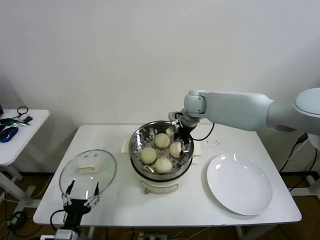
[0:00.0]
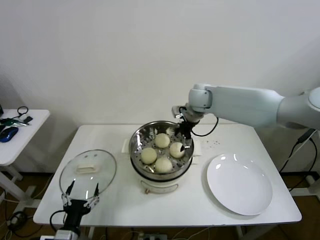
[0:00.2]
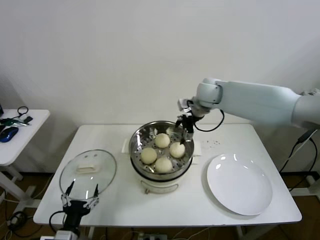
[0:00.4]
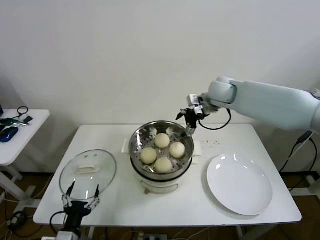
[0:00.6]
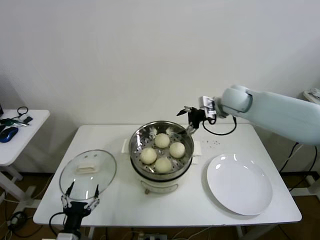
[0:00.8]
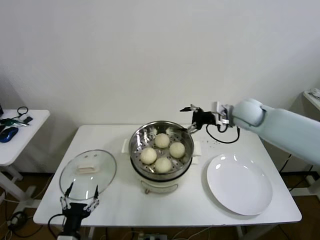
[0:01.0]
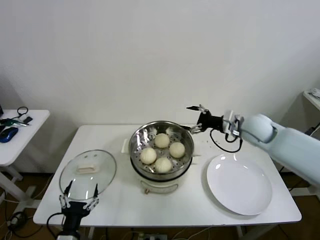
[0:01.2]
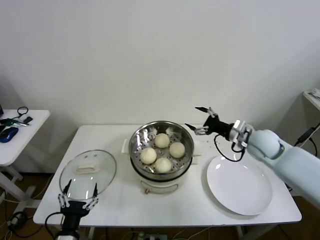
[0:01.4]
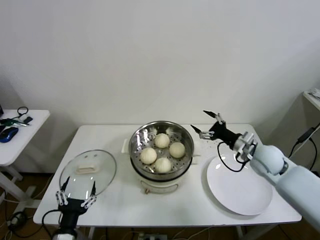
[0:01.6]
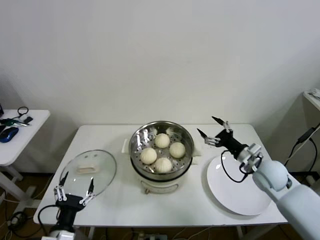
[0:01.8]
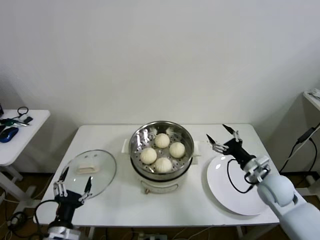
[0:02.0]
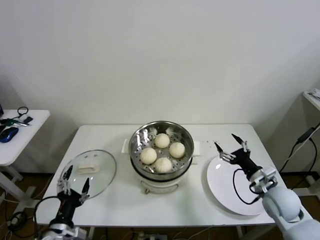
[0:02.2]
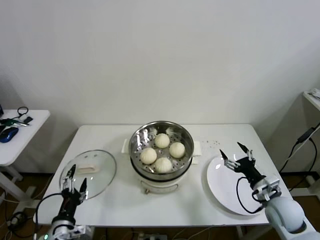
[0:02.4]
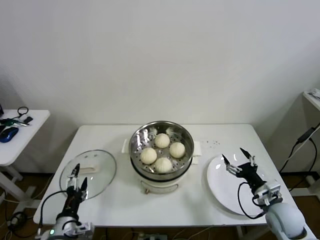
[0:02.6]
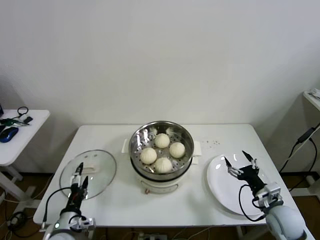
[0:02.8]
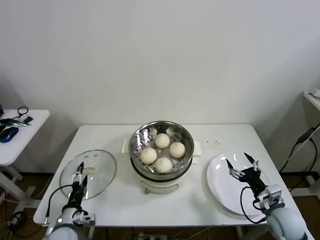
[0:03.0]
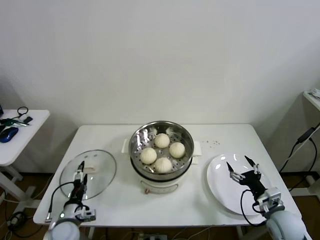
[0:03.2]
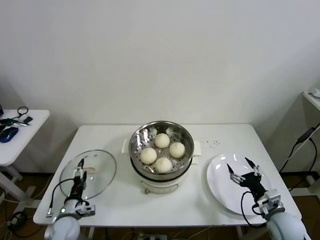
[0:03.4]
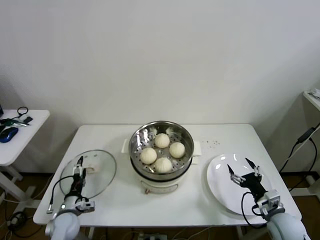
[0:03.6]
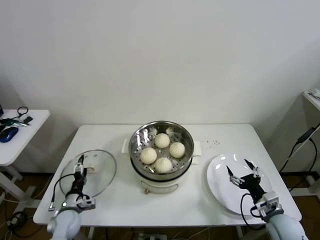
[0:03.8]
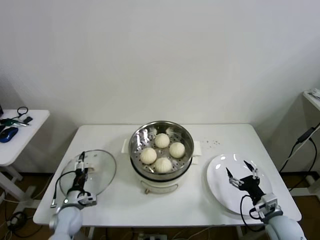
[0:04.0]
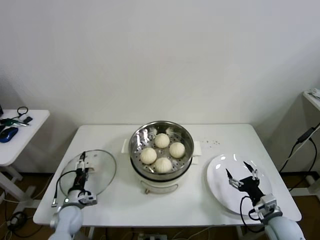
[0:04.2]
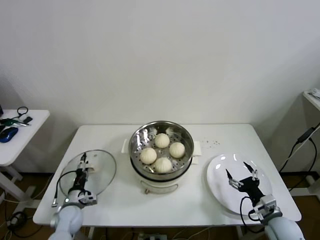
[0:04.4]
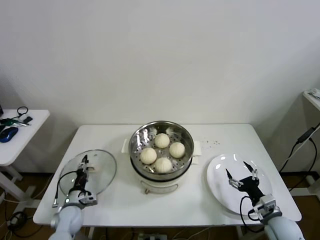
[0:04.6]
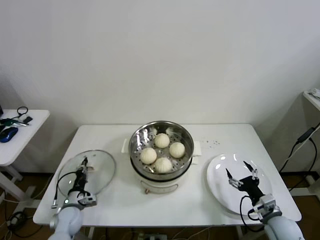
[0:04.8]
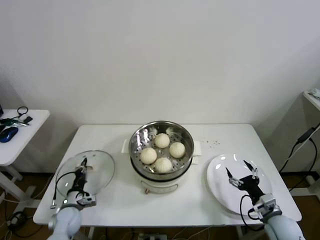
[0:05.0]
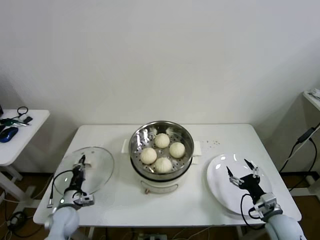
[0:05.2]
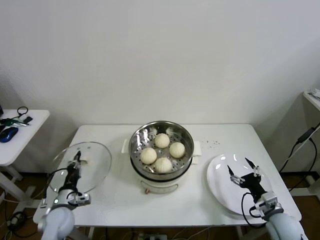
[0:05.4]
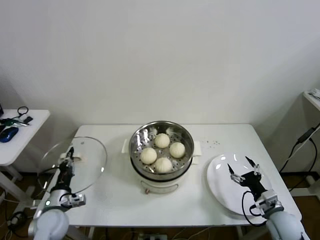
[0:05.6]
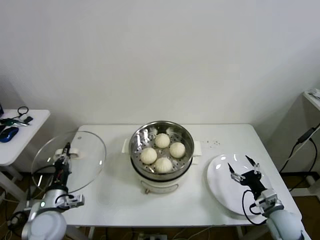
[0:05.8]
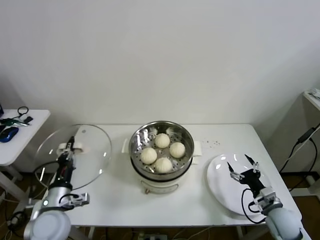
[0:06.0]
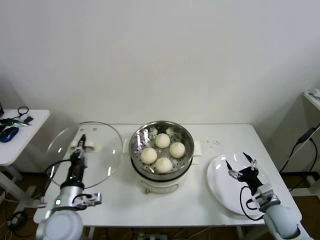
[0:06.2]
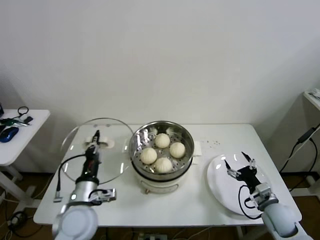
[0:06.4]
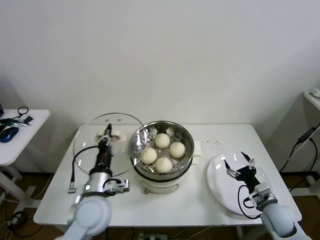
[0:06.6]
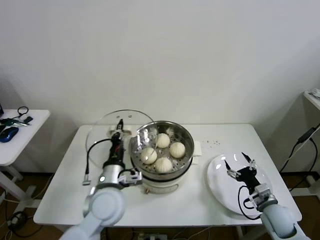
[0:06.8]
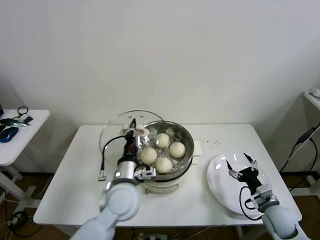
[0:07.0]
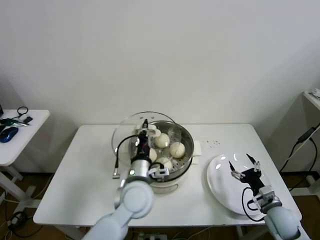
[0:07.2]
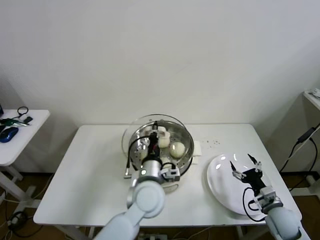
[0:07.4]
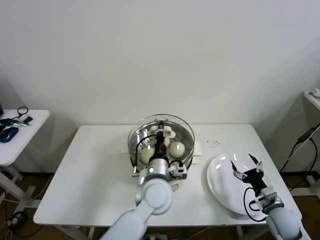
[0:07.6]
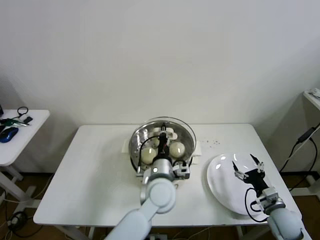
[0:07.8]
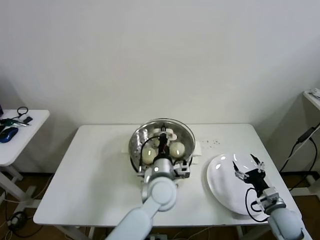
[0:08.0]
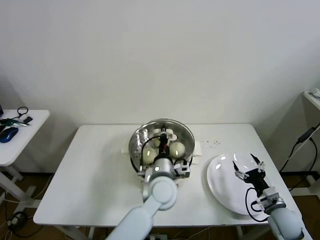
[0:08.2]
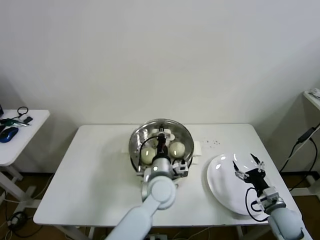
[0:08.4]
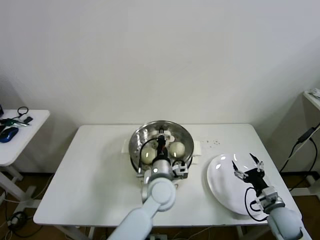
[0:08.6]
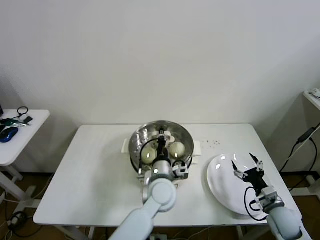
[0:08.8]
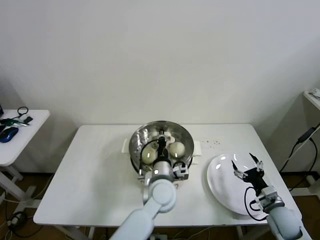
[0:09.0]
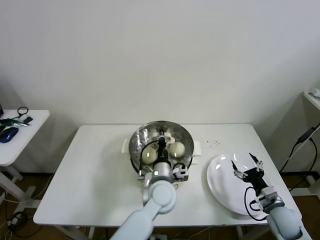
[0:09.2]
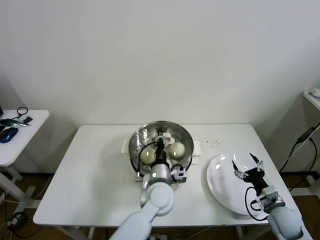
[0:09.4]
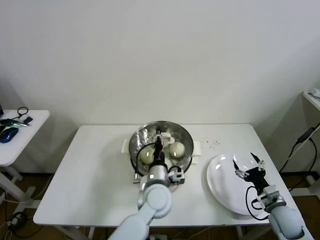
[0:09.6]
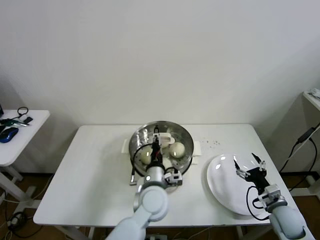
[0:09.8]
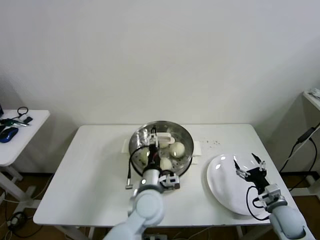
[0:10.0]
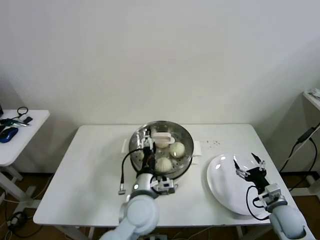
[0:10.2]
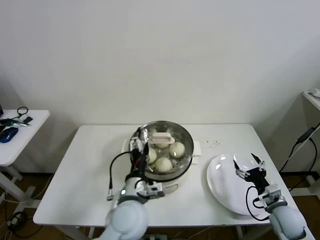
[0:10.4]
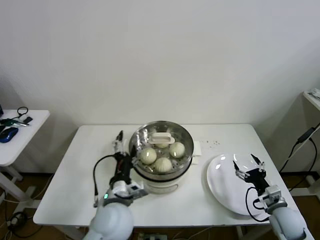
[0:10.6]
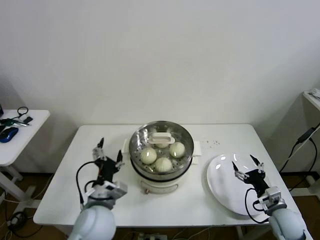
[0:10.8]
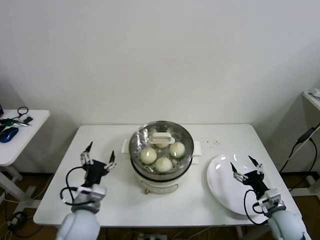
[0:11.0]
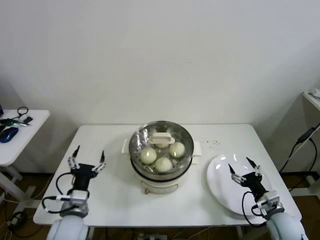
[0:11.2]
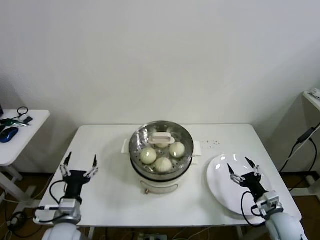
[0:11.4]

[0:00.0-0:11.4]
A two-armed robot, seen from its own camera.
Step, 0:00.0 to 0:04.8: Grasp the pot lid with left gripper.
Step, 0:05.0 to 0:09.4: Place the pot lid on the steamer with left gripper.
0:00.0 to 0:01.4: The right gripper goes some 25 cm to the right and backward.
0:01.4 to 0:02.8: The right gripper travels backward and downward by some 25 cm, while the left gripper heads forward, covering about 5 cm.
0:02.8 to 0:04.2: The left gripper goes about 15 cm forward and downward.
0:04.2 to 0:05.6: The left gripper is displaced upward by about 10 cm, and closes up.
0:05.6 to 0:07.2: The left gripper moves to the right and upward, approximately 30 cm.
0:07.2 to 0:08.6: The left gripper travels to the right by about 10 cm.
0:08.6 to 0:10.0: The left gripper opens its fingers.
0:10.0 to 0:11.4: The left gripper goes roughly 25 cm to the left.

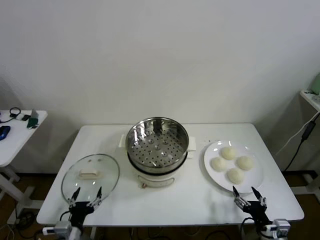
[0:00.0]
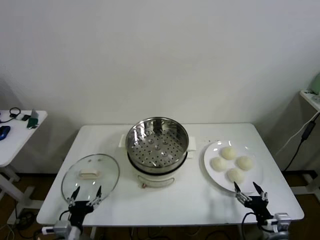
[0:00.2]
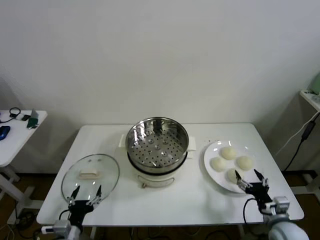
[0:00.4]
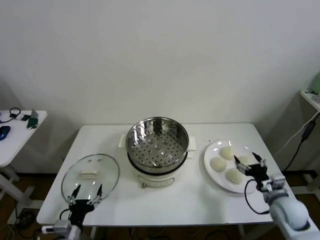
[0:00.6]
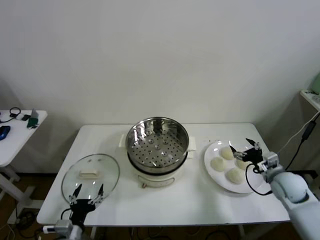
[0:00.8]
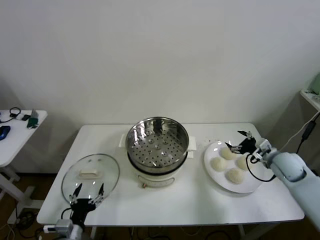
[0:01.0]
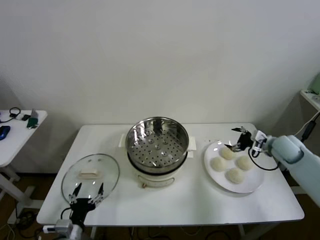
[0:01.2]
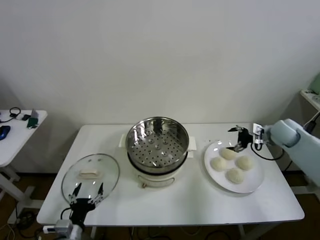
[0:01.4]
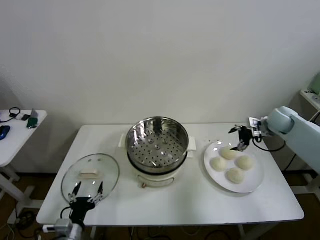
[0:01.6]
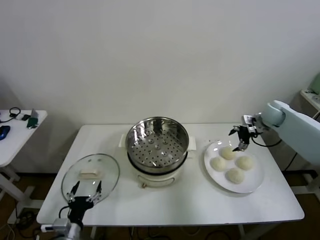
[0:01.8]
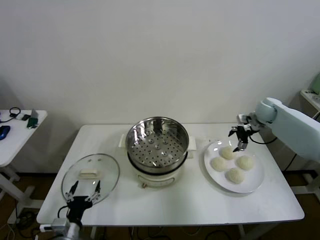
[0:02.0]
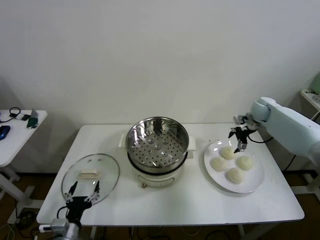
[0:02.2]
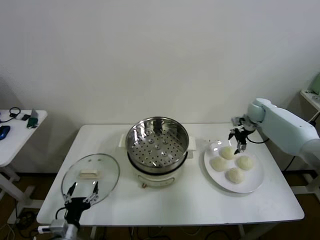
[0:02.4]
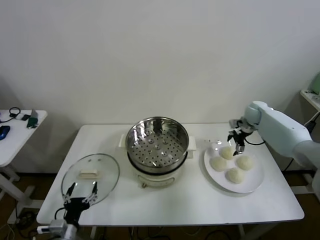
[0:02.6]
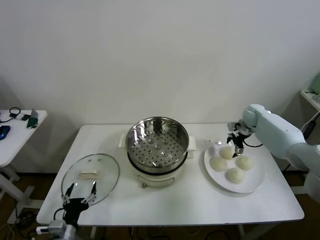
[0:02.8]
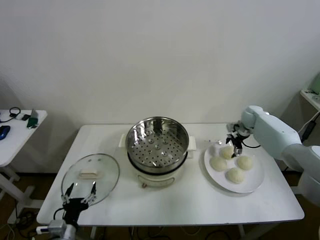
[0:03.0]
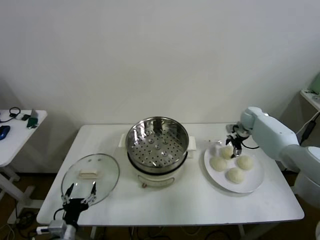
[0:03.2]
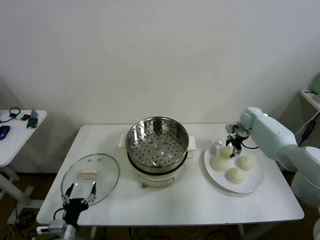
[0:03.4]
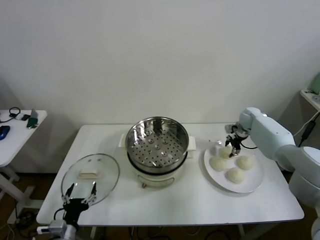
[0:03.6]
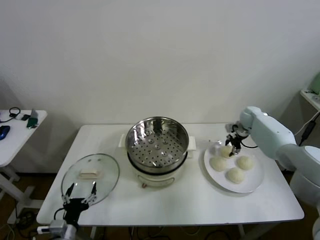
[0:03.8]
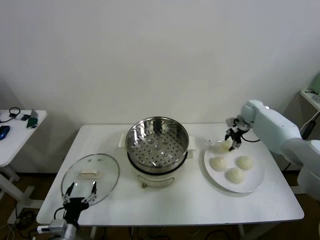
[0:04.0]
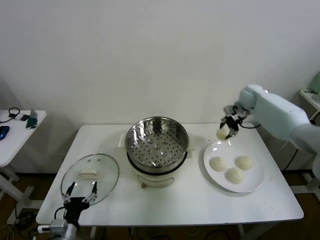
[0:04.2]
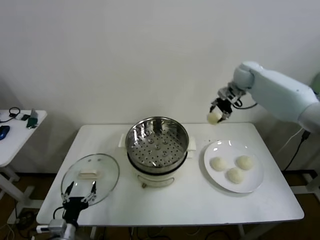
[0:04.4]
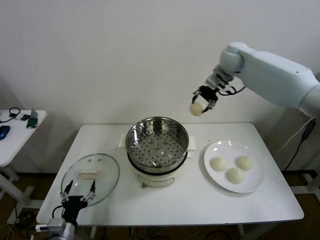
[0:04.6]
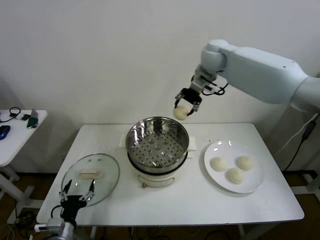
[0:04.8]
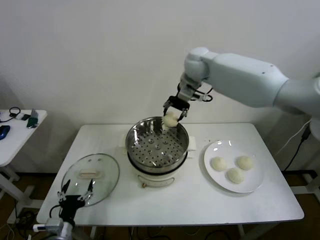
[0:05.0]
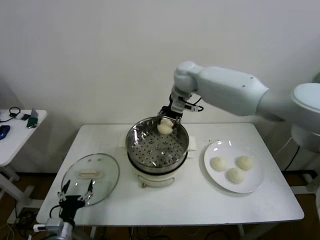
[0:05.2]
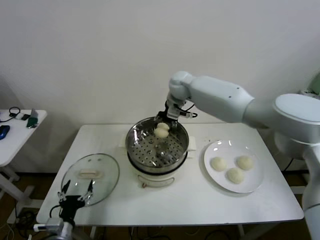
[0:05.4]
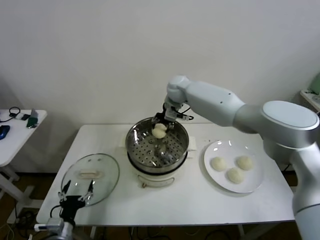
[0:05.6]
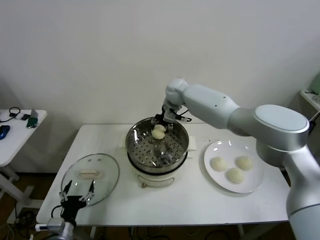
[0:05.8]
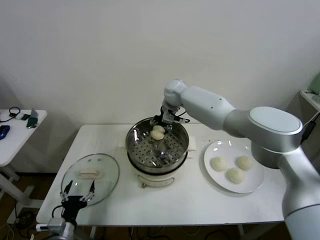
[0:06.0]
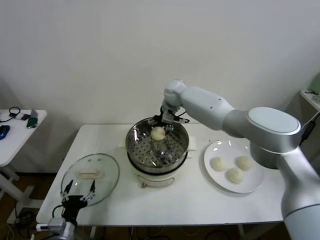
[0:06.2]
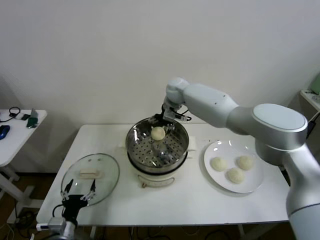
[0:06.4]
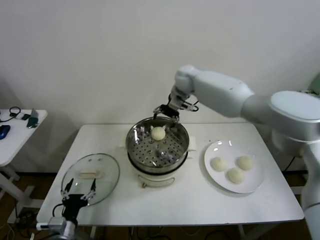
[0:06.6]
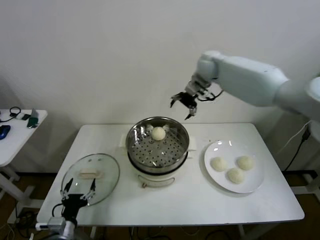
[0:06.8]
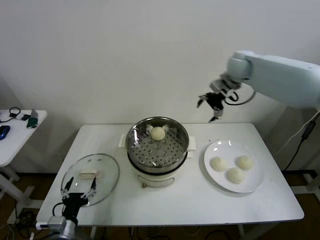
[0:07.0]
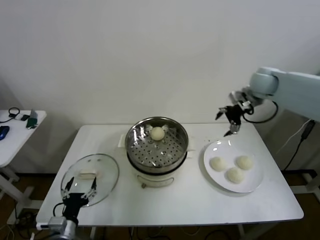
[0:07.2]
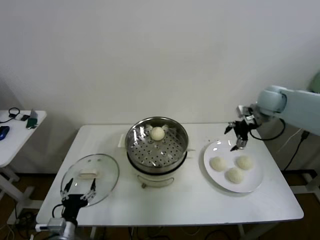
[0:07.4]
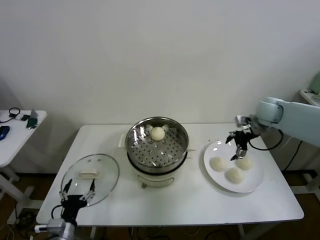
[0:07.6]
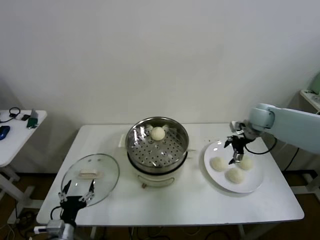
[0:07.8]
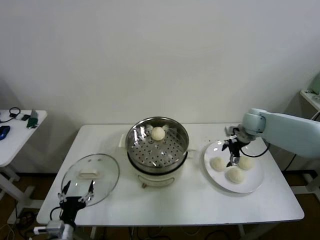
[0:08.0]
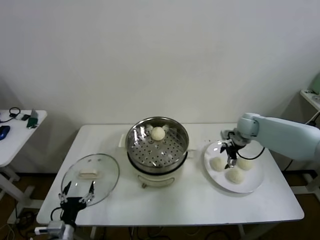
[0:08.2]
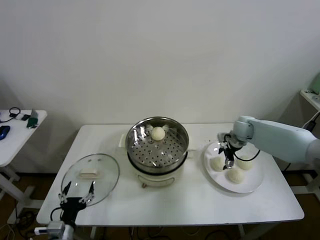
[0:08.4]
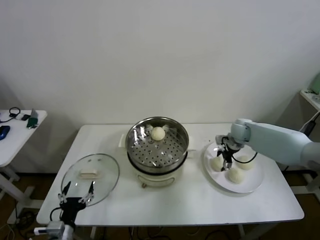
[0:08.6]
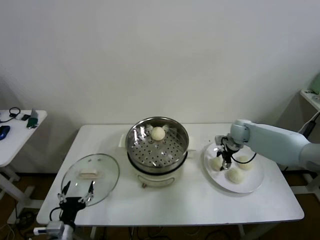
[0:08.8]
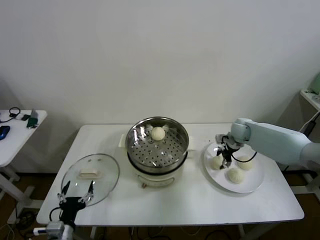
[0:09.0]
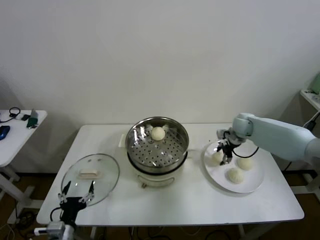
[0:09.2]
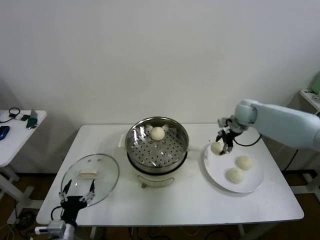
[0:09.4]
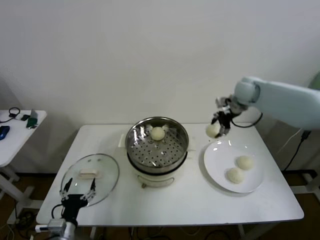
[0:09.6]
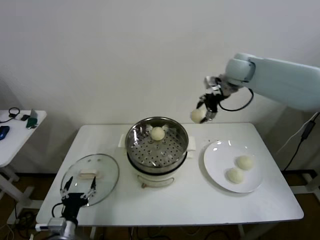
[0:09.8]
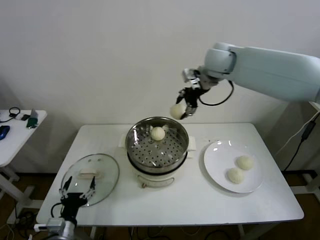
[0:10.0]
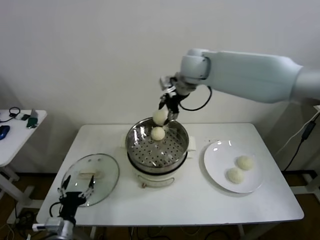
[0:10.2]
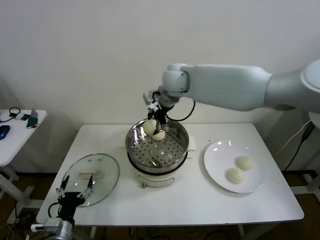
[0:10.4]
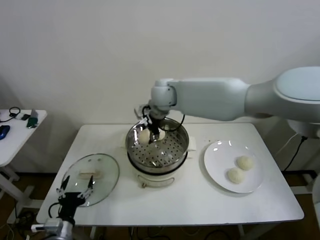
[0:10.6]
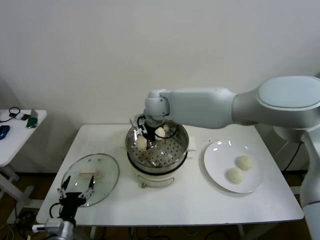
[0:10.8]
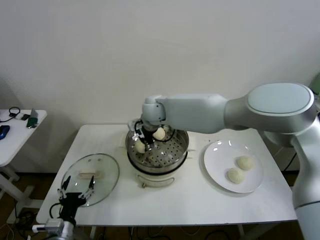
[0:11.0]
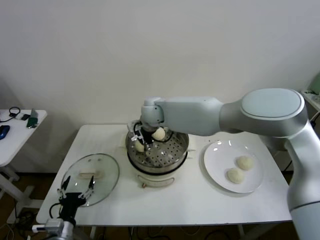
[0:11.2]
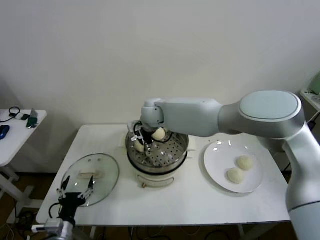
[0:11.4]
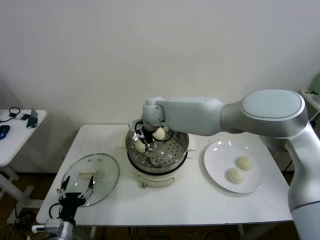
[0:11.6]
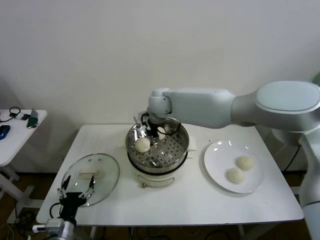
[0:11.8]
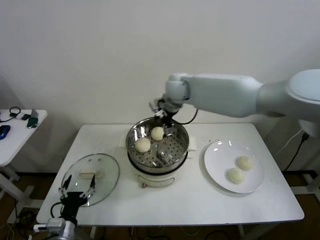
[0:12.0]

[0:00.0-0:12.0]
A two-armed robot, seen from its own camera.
Step, 0:00.0 to 0:03.6: Grasp the baozi in the plate with right gripper.
Step, 0:03.8 to 0:06.2: Place the baozi on the steamer with right gripper.
Step, 0:06.4 to 0:08.8: Grasp the baozi in the plate with right gripper.
Step, 0:09.0 to 0:11.6: Place the baozi on the steamer with right gripper.
0:01.6 to 0:03.0: The right gripper moves forward and downward, approximately 10 cm.
0:03.0 to 0:04.4: The right gripper is displaced upward and to the left by approximately 25 cm, and closes up.
0:04.4 to 0:06.0: The right gripper goes approximately 25 cm to the left and downward, and opens its fingers.
0:06.0 to 0:07.6: The right gripper shifts some 30 cm to the right, and opens up.
0:07.6 to 0:09.0: The right gripper moves downward, roughly 10 cm, and closes its fingers.
0:09.0 to 0:10.4: The right gripper heads to the left and upward, covering about 35 cm.
0:10.4 to 0:12.0: The right gripper is displaced to the right by some 5 cm, and opens.
